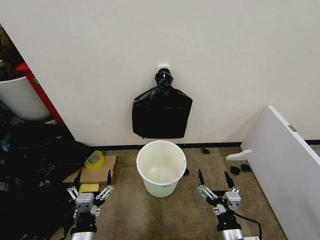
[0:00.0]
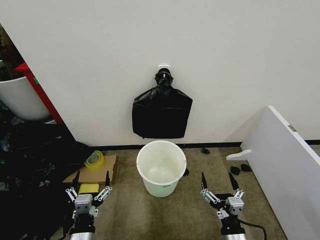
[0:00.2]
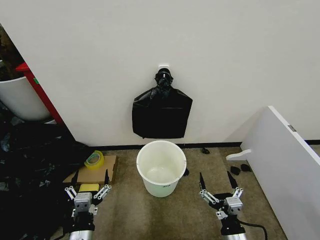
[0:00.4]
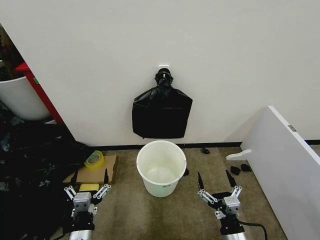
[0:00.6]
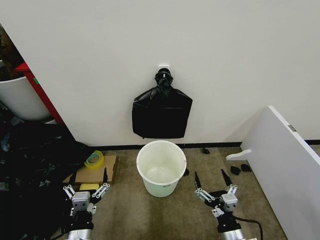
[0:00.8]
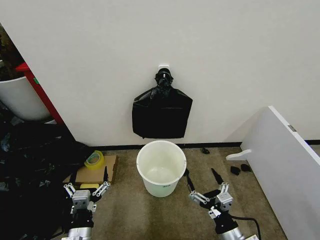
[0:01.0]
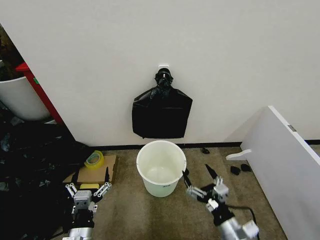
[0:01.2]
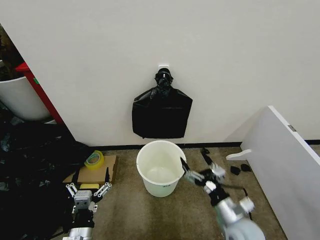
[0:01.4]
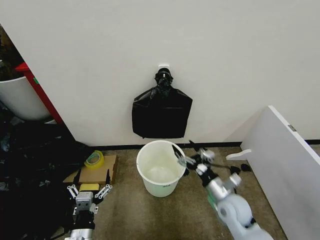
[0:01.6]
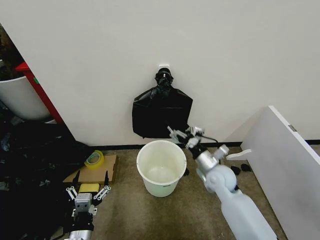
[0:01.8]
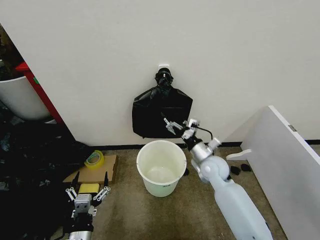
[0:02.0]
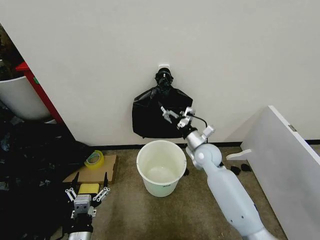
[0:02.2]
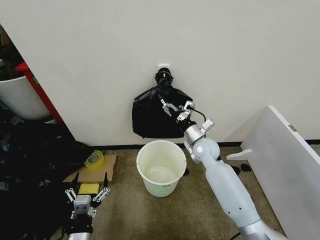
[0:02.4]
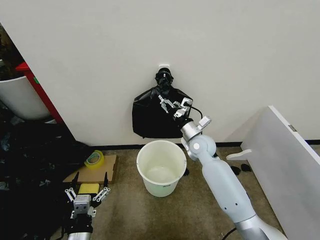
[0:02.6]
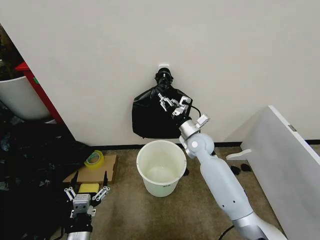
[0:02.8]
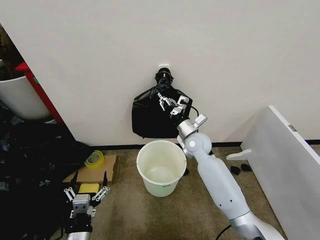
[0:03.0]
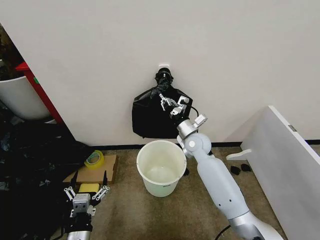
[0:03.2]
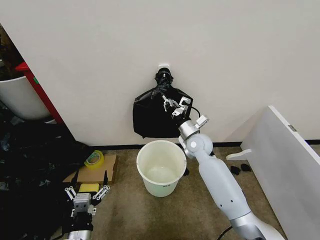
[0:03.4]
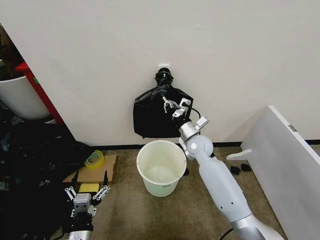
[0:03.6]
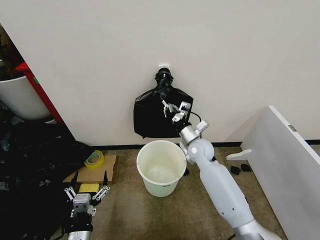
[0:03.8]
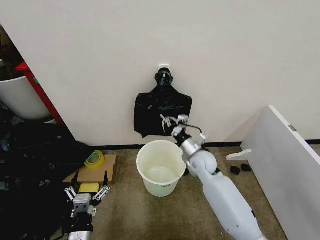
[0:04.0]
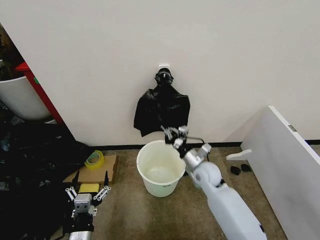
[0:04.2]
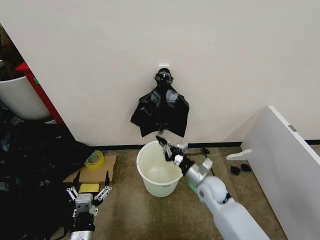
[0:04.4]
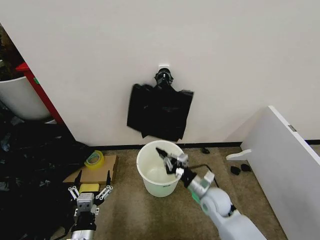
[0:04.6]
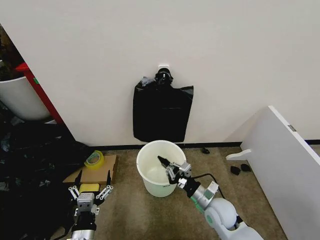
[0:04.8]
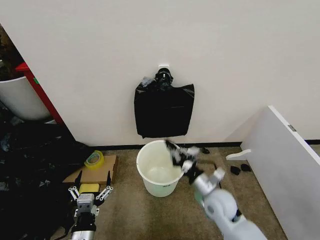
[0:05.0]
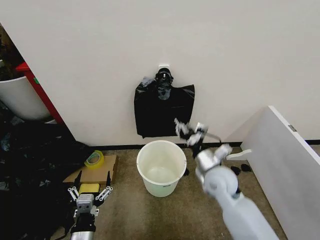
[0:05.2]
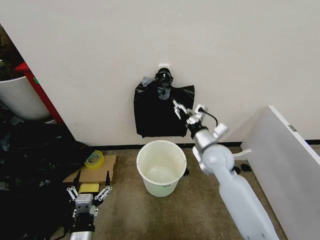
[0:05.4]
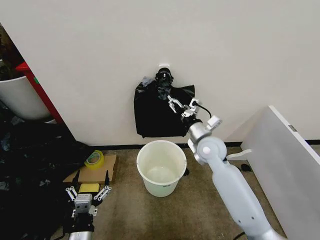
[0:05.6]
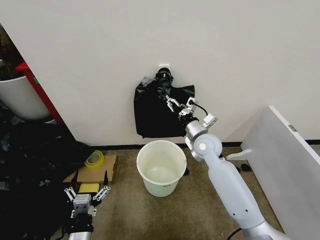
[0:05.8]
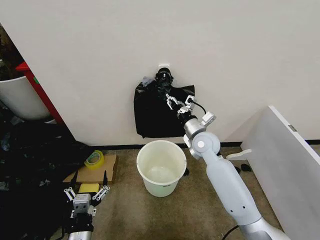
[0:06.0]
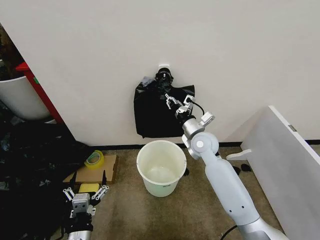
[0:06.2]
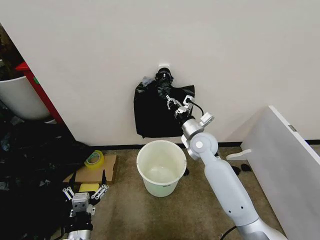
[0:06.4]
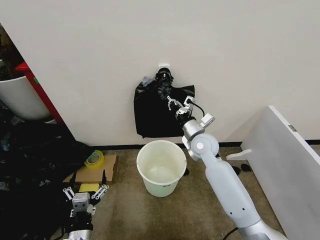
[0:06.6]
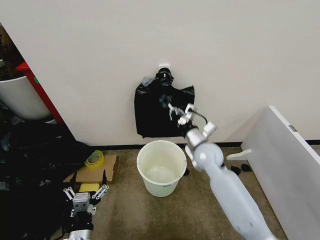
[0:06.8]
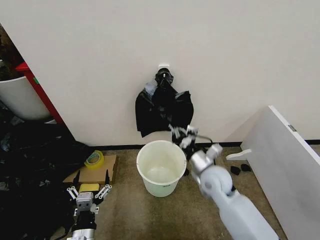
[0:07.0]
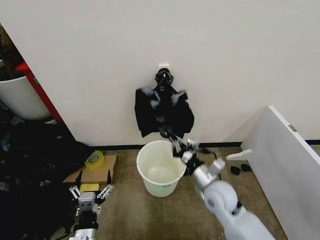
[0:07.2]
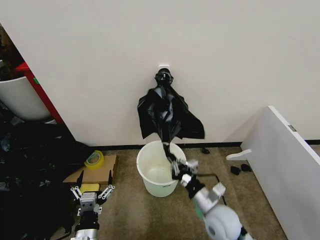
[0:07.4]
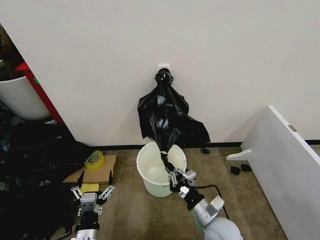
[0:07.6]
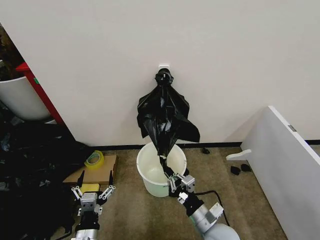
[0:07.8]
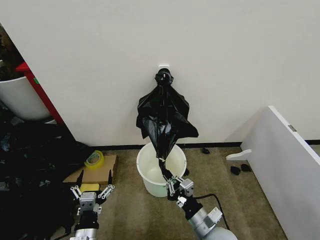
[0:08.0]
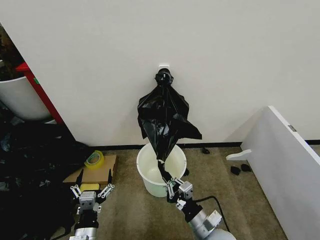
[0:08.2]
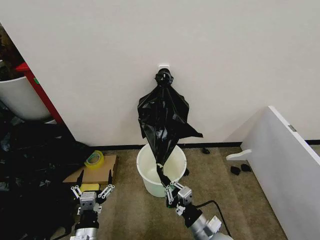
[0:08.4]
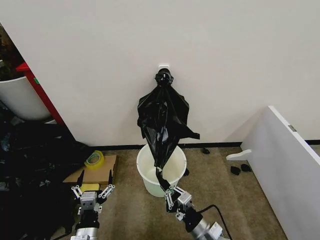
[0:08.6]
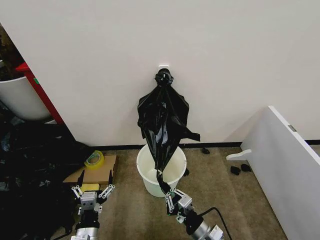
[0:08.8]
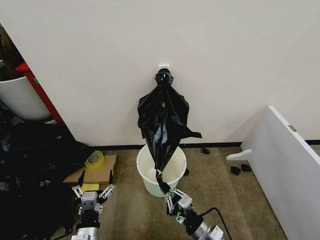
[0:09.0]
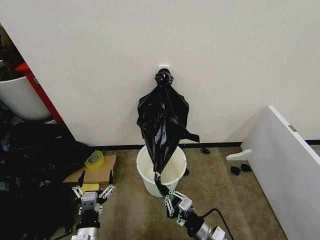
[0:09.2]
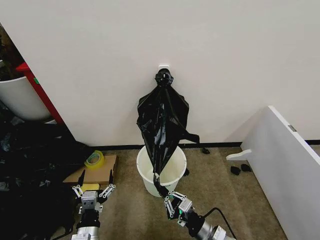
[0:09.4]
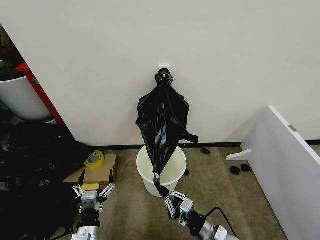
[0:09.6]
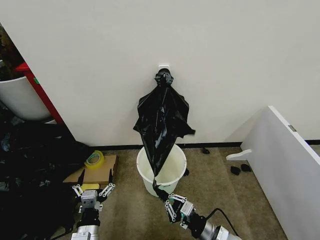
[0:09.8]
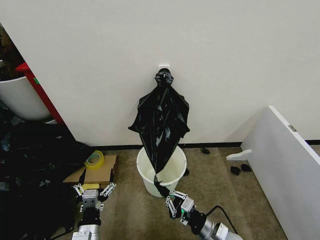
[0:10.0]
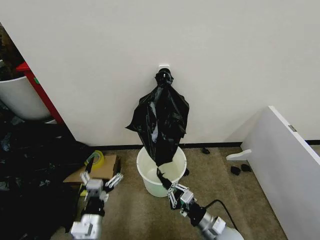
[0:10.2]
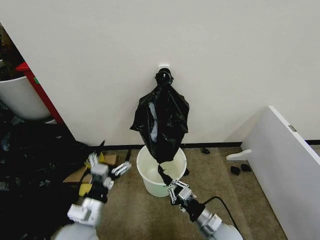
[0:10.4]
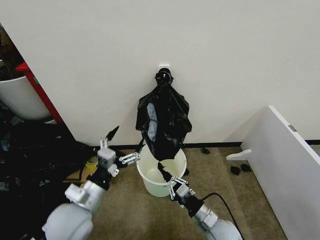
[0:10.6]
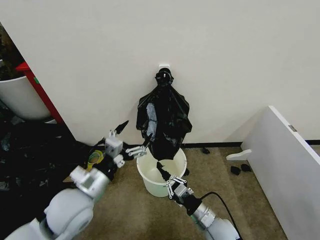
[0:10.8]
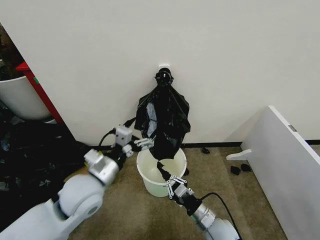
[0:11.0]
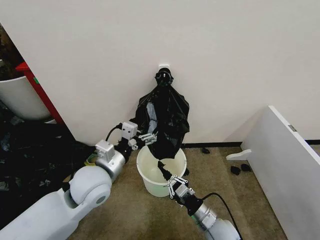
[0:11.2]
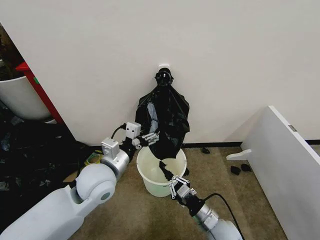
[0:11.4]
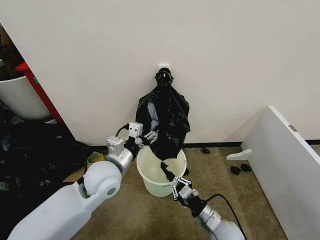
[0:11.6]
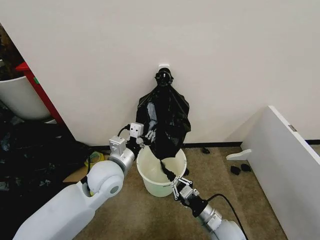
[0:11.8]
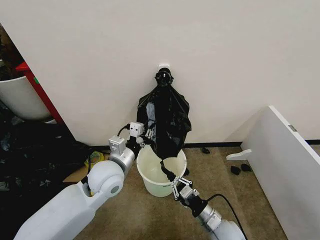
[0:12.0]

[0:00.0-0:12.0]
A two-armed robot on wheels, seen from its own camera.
Task of the whole recording: Place the garbage bag over the trash bin.
0:01.6 to 0:03.0: The right gripper moves forward, to the left and upward, about 25 cm, and closes.
0:03.0 to 0:04.4: The right gripper is displaced backward and downward by approximately 15 cm.
0:04.4 to 0:06.0: The right gripper heads upward and forward, covering approximately 15 cm, and opens.
0:06.0 to 0:07.6: The right gripper is displaced backward and downward by about 25 cm, and closes up.
0:07.6 to 0:09.0: The right gripper ends up roughly 5 cm from where it was.
0:09.0 to 0:10.4: The left gripper is displaced upward and forward by some 10 cm.
0:10.4 to 0:12.0: The left gripper shifts approximately 15 cm forward, upward and to the right, and closes up.

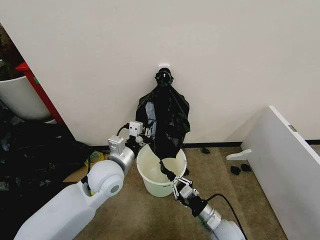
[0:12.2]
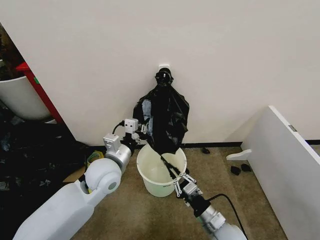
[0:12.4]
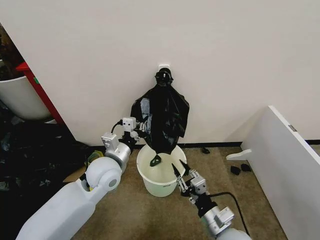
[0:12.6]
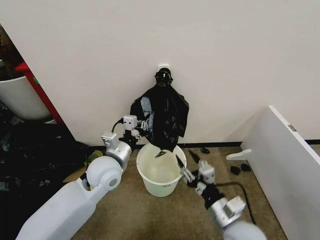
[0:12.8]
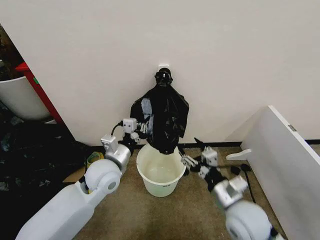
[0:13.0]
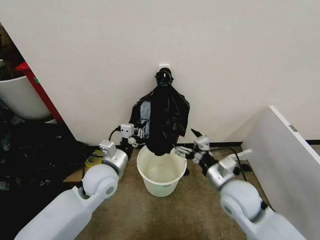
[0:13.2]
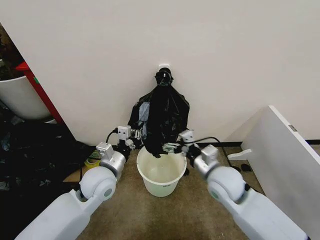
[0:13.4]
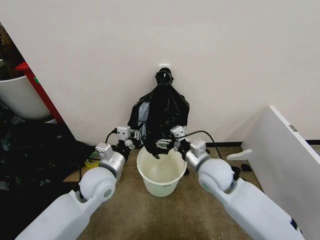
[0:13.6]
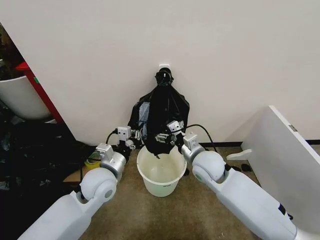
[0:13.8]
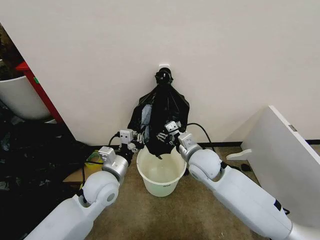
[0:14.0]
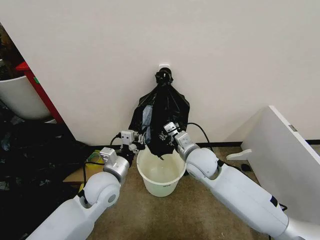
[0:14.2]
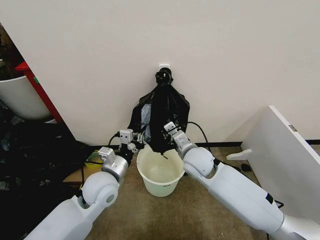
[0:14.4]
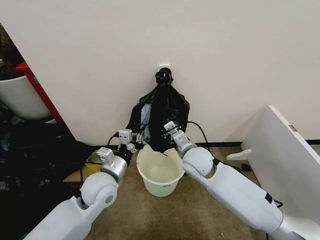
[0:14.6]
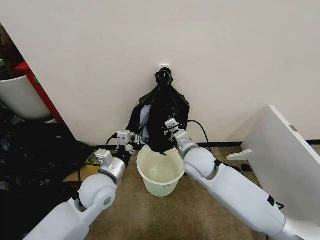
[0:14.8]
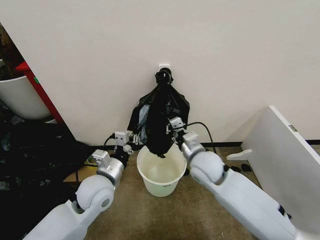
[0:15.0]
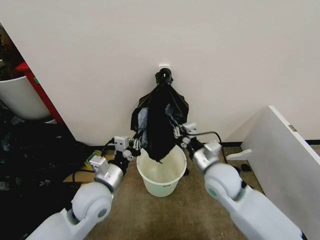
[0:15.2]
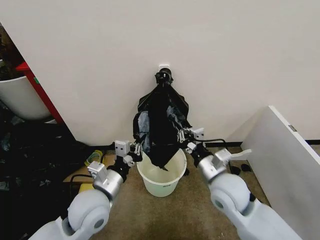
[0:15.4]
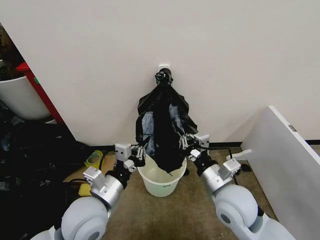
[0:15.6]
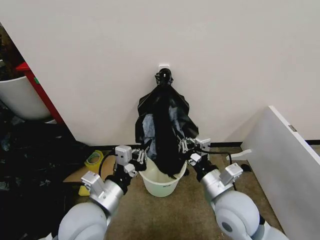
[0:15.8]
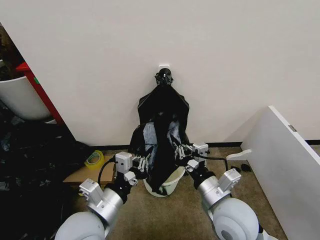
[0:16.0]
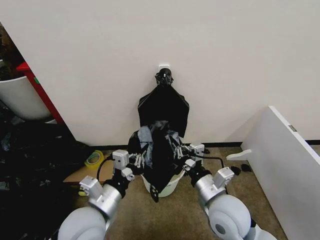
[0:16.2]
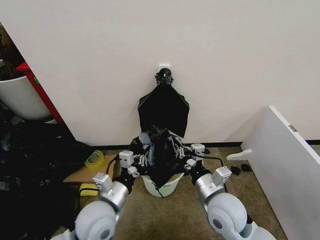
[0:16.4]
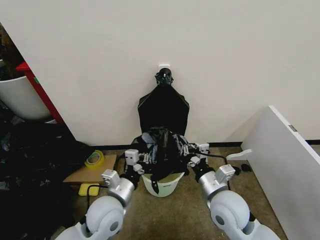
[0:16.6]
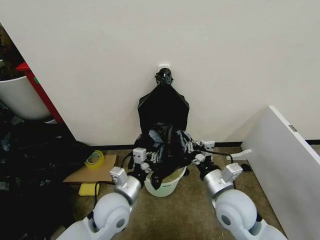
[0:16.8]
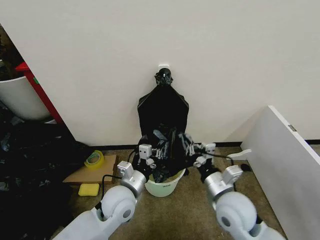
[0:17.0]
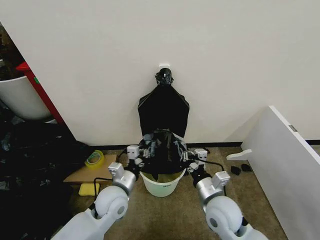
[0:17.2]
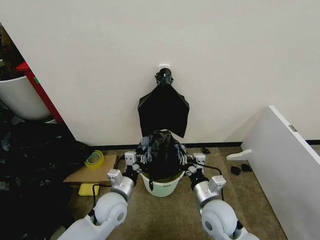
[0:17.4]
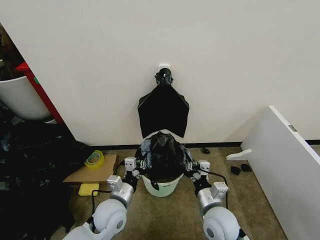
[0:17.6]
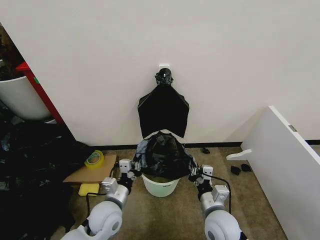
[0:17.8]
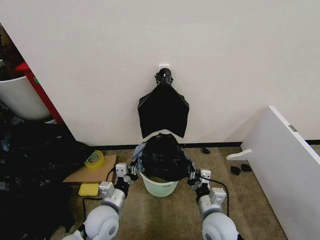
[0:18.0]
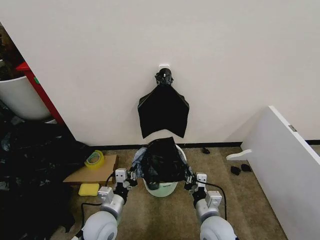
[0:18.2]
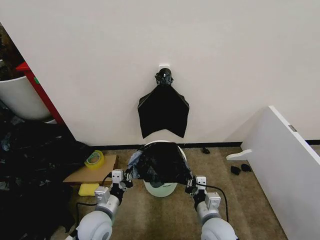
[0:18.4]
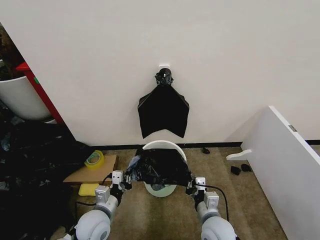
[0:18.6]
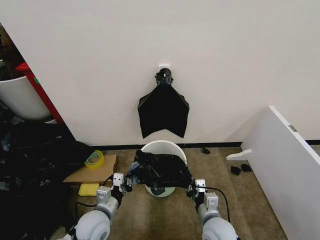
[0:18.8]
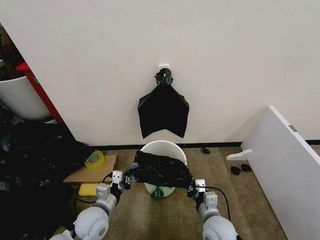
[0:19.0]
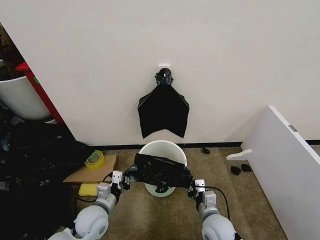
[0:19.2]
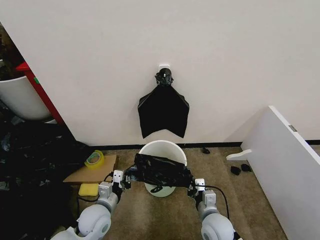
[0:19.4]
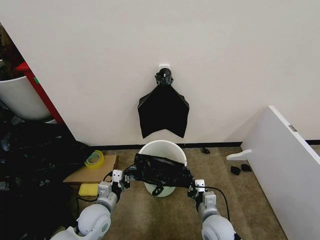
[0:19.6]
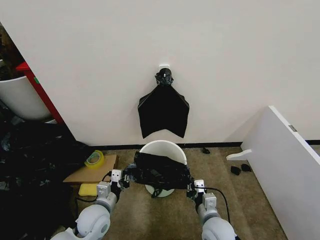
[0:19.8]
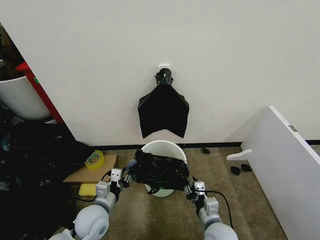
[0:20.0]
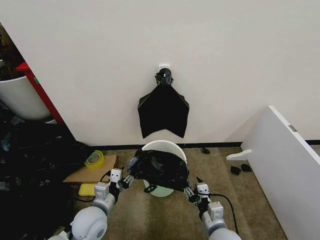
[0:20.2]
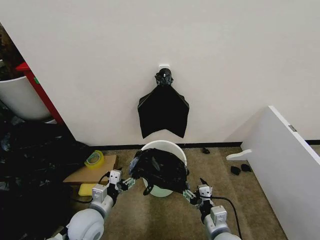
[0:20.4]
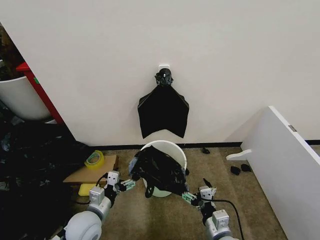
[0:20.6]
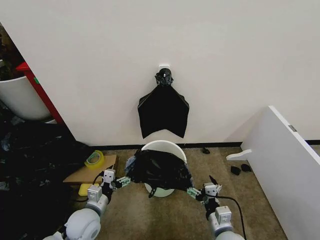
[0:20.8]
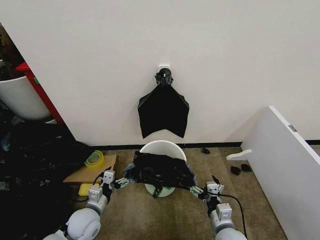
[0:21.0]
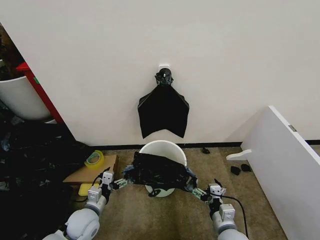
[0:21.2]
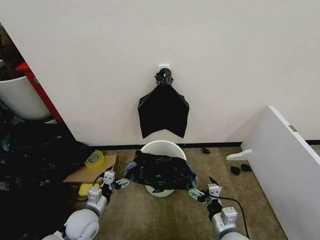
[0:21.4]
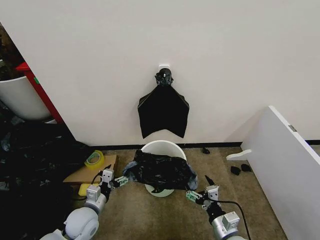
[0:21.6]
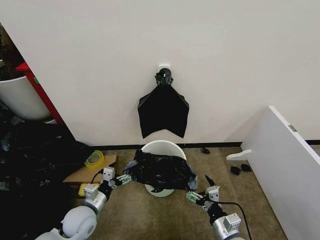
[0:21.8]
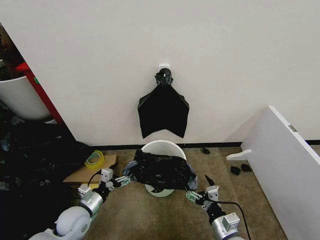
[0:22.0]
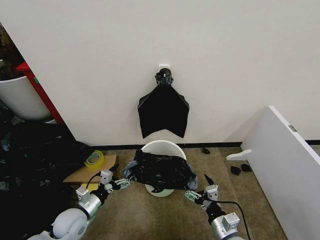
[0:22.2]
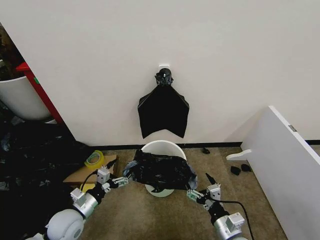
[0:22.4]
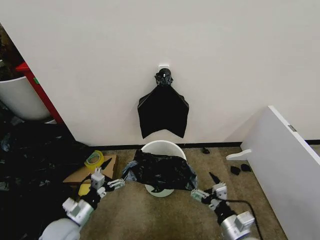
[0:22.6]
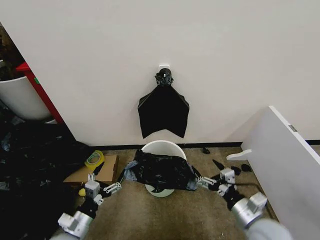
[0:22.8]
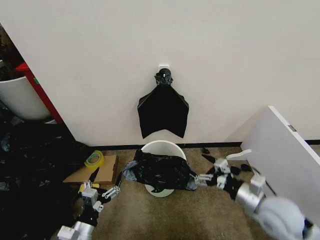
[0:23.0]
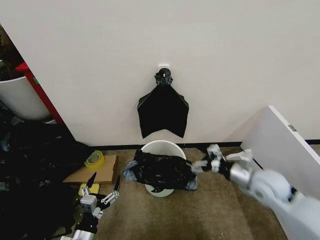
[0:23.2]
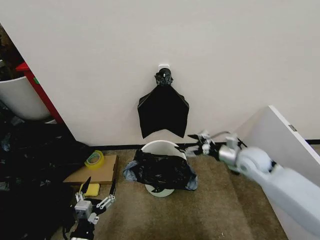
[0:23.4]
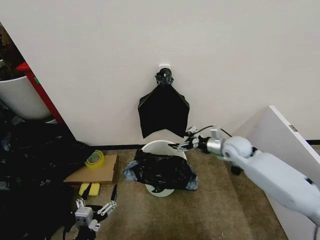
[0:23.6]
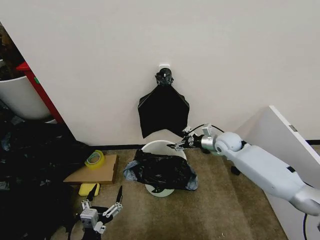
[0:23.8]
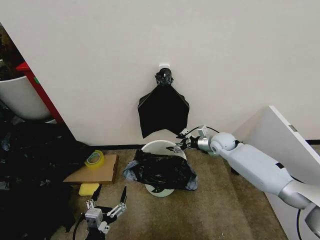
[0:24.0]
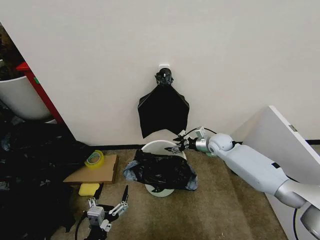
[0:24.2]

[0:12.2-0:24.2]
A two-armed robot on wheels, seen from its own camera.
Task of the whole recording: Place the garbage bag over the trash bin.
0:12.2 to 0:13.8: The right gripper is displaced upward and forward by about 25 cm, and opens up.
0:13.8 to 0:15.2: Both grippers move backward, some 5 cm. The right gripper closes up.
0:15.2 to 0:16.6: The right gripper travels backward by roughly 5 cm. The left gripper reaches about 10 cm backward, then returns.
0:16.6 to 0:18.2: Both grippers move downward, approximately 10 cm.
0:18.2 to 0:19.8: There are only small adjustments of the grippers.
0:19.8 to 0:21.2: The left gripper moves about 5 cm, and opens. The right gripper ends up approximately 5 cm from where it was, and opens up.
0:21.2 to 0:22.6: The right gripper heads upward, covering about 5 cm, while the left gripper ends up some 5 cm from where it was.
0:22.6 to 0:24.2: The left gripper travels backward and to the right by some 15 cm, while the right gripper goes approximately 35 cm forward.
